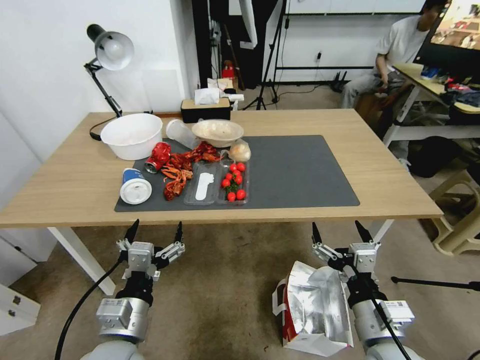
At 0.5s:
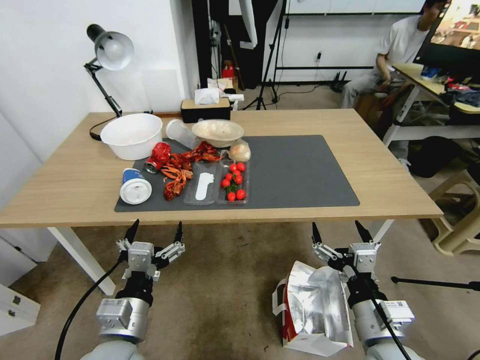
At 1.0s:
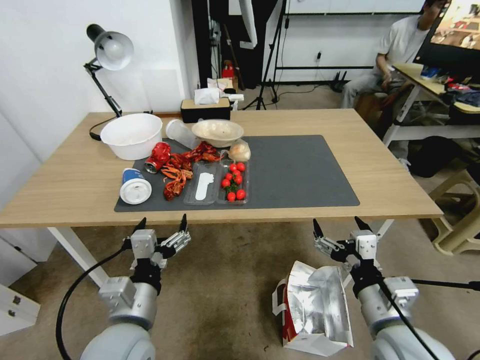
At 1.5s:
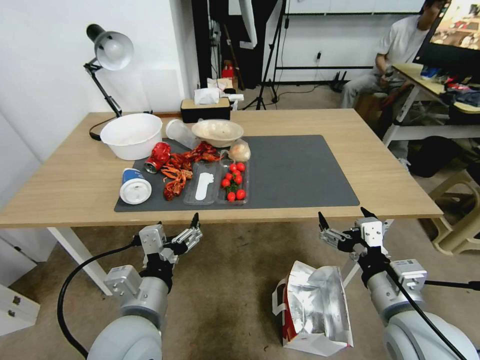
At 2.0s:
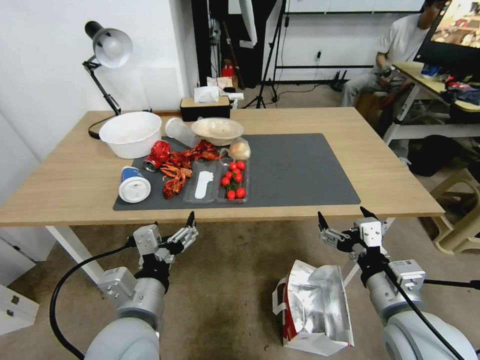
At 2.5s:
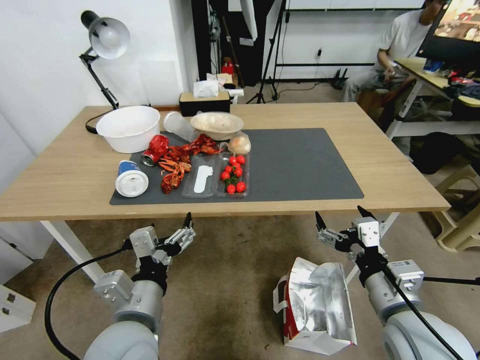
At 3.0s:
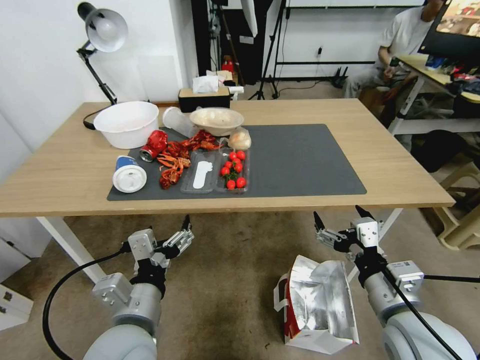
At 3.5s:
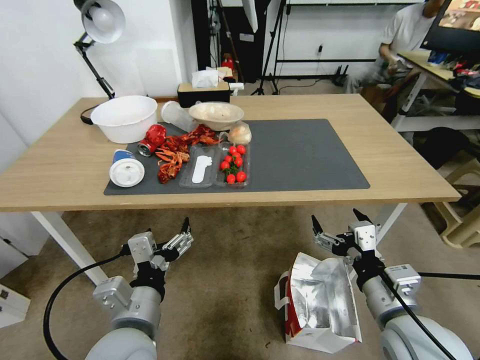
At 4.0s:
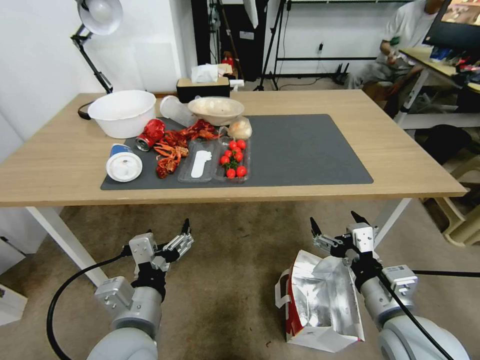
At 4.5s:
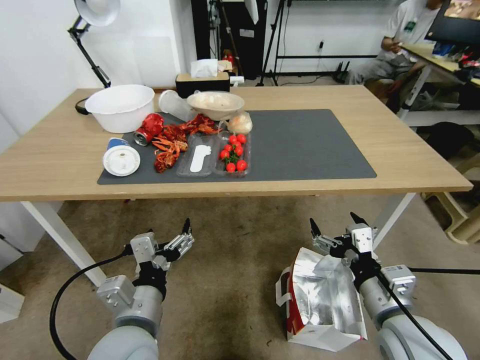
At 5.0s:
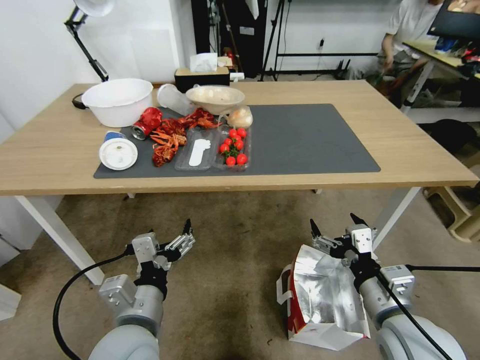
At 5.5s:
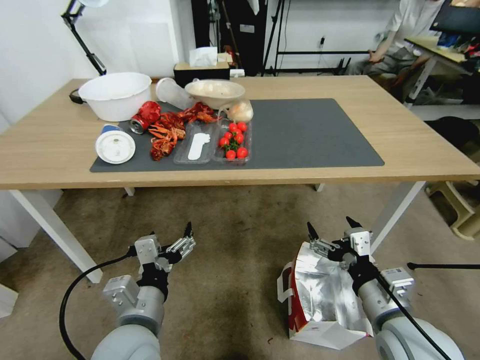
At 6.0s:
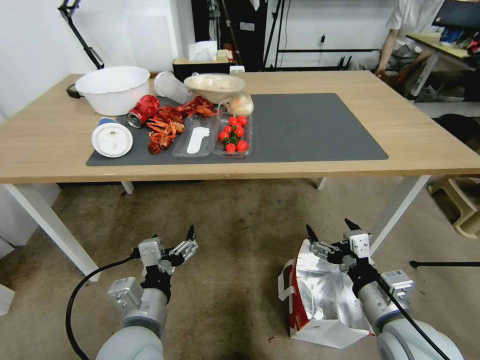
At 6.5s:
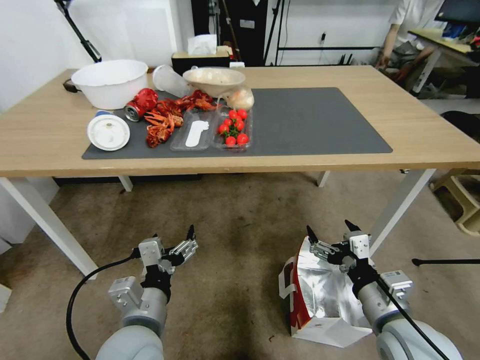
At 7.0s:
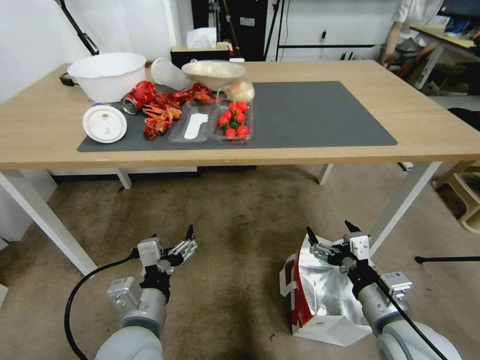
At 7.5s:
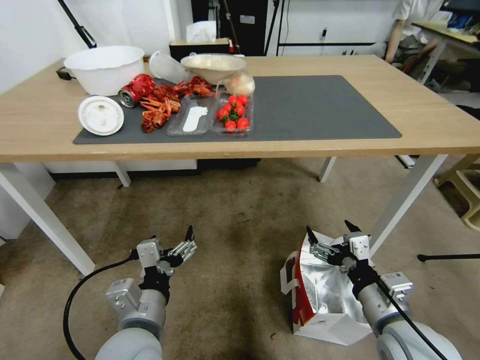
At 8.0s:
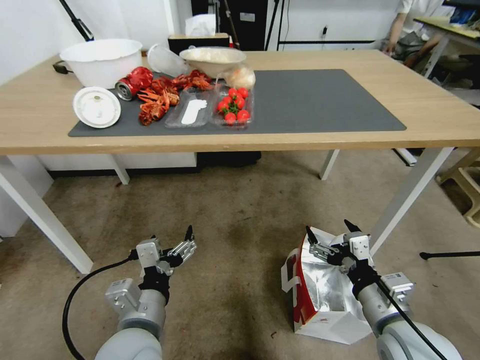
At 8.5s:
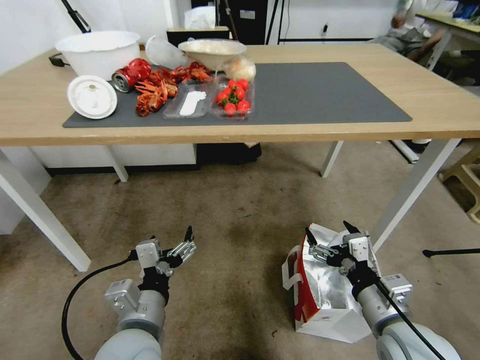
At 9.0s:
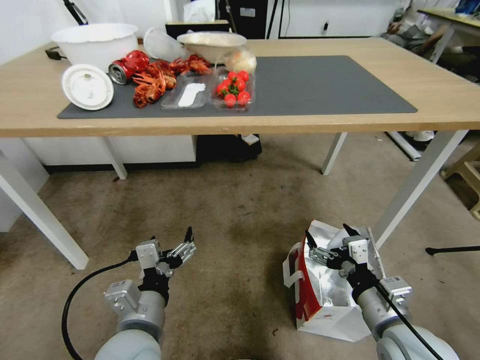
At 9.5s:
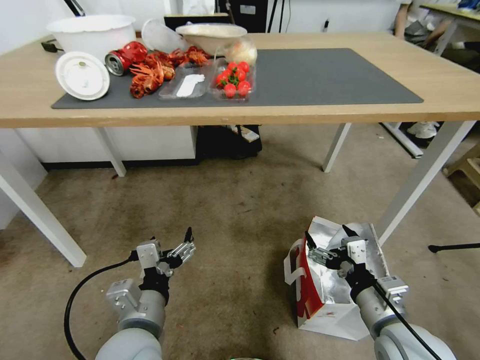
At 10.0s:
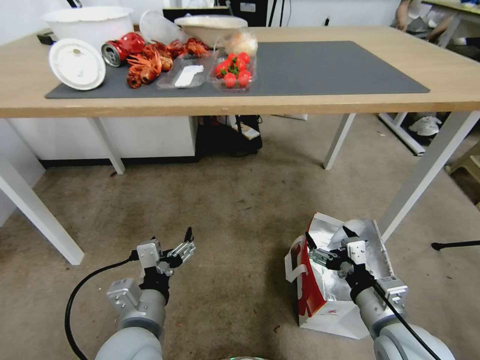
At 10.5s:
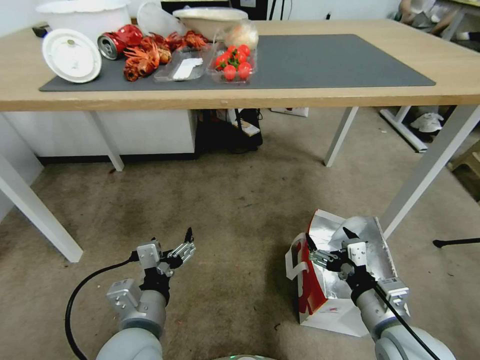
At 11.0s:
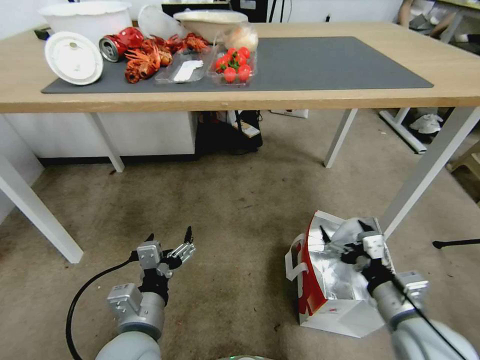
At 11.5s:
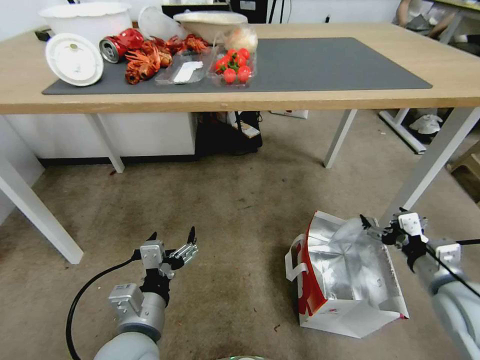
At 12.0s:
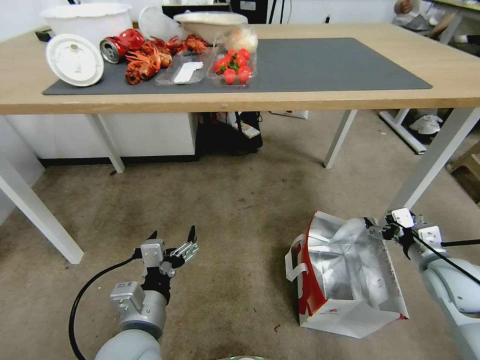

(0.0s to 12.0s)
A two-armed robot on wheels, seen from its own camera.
Task of the whole recording: Pick up the food delivery bag from the floor and place it on the table.
10.0s - 12.0s: The right gripper shifts roughly 20 cm to the right and forward.

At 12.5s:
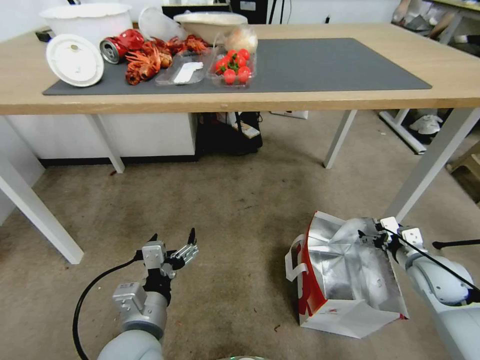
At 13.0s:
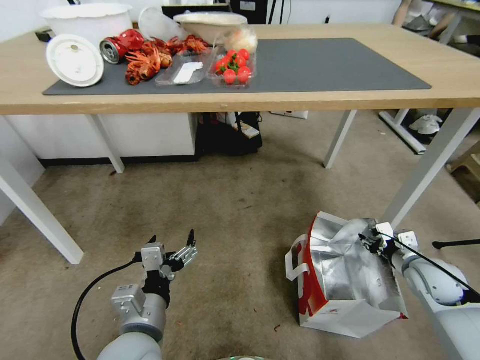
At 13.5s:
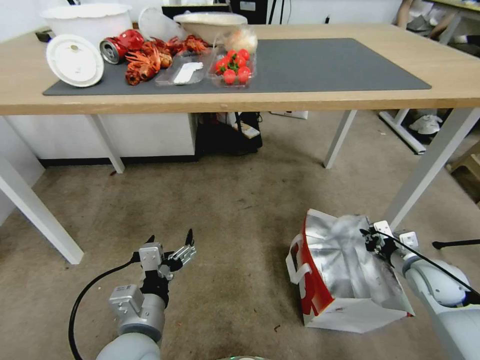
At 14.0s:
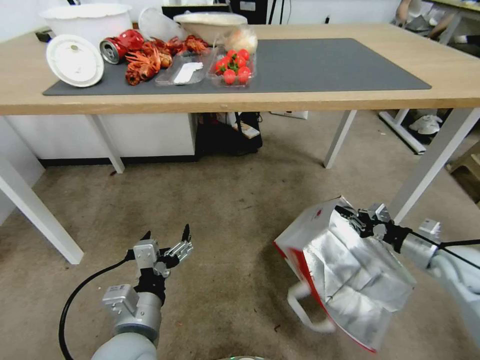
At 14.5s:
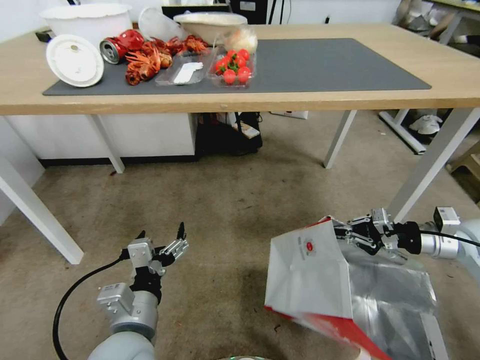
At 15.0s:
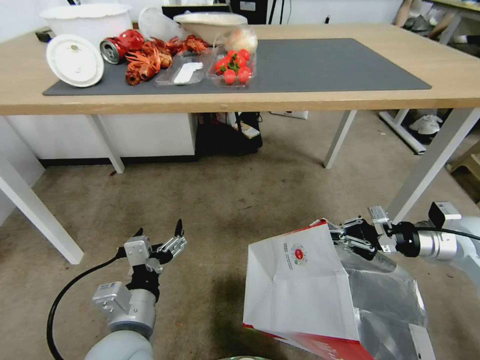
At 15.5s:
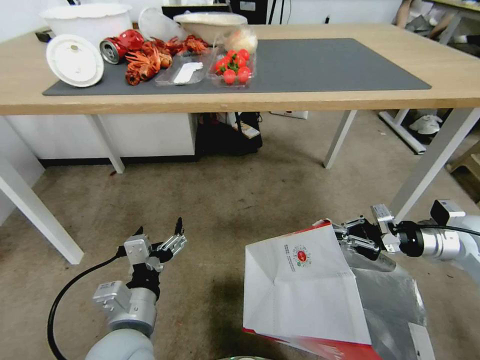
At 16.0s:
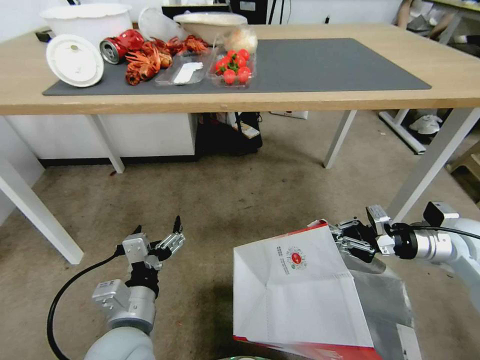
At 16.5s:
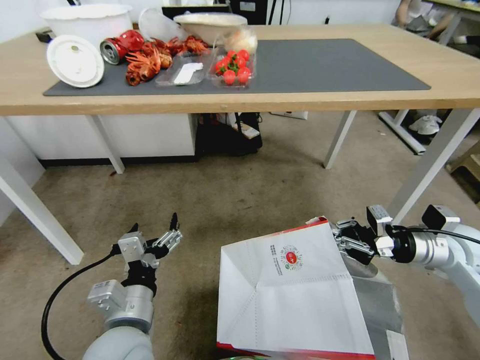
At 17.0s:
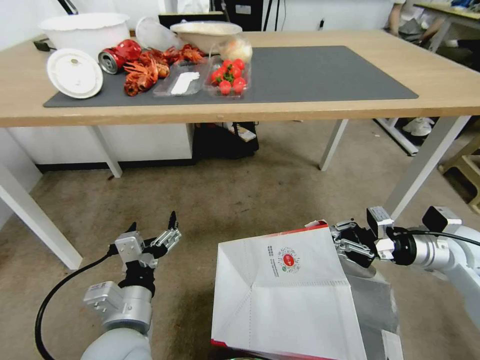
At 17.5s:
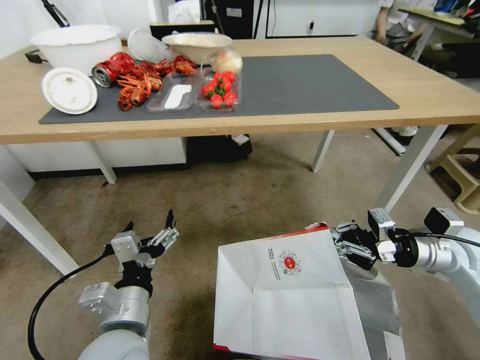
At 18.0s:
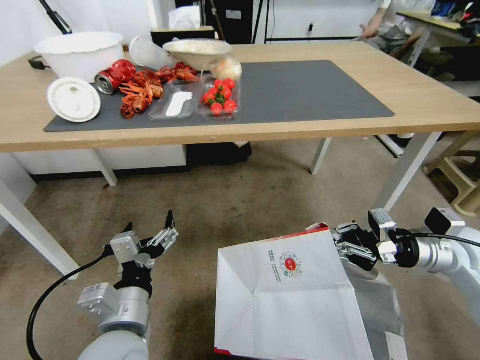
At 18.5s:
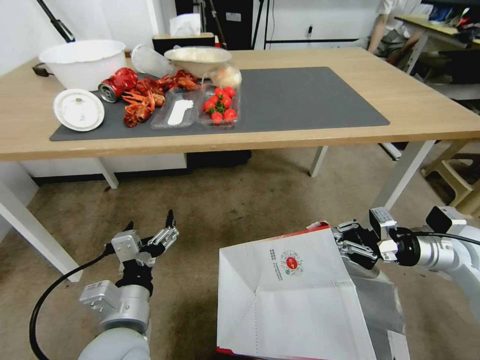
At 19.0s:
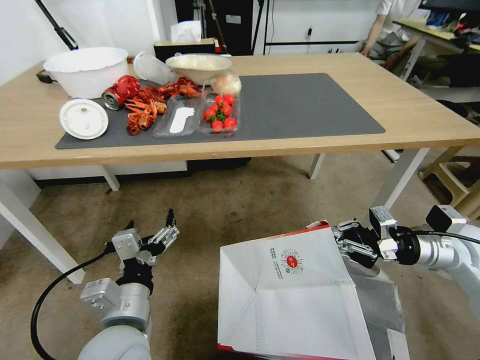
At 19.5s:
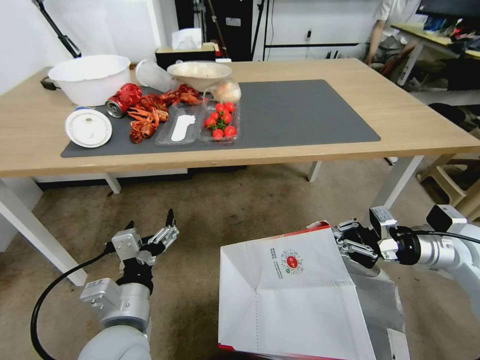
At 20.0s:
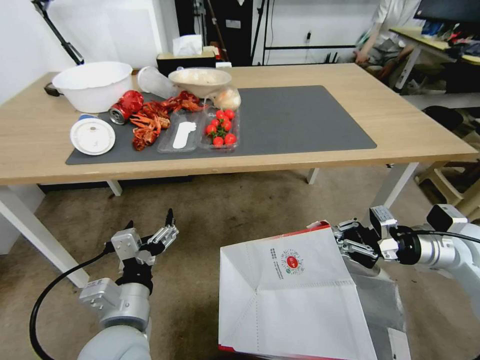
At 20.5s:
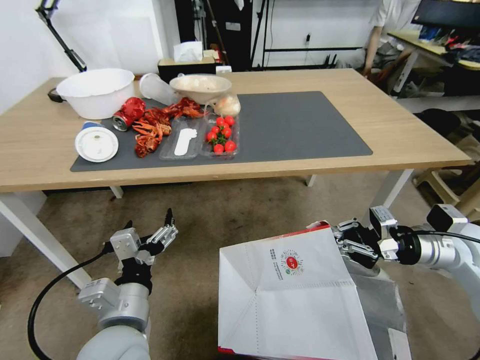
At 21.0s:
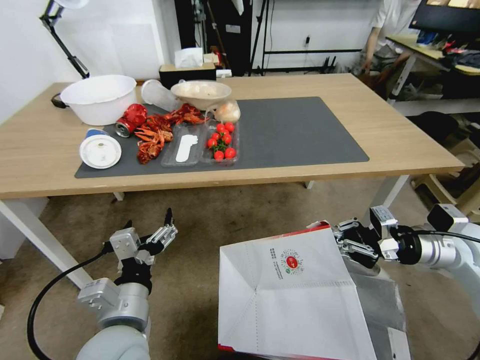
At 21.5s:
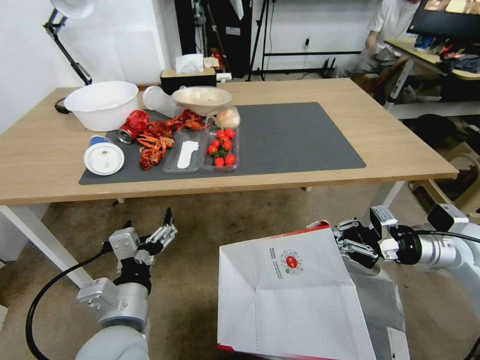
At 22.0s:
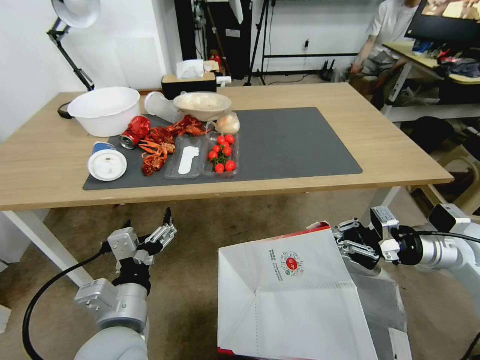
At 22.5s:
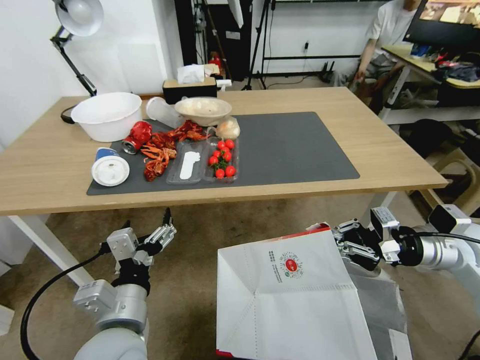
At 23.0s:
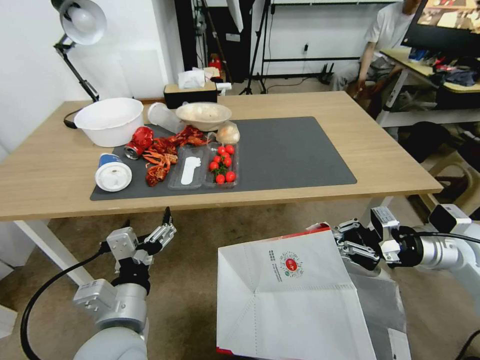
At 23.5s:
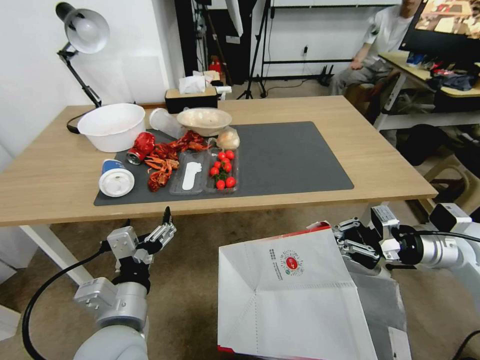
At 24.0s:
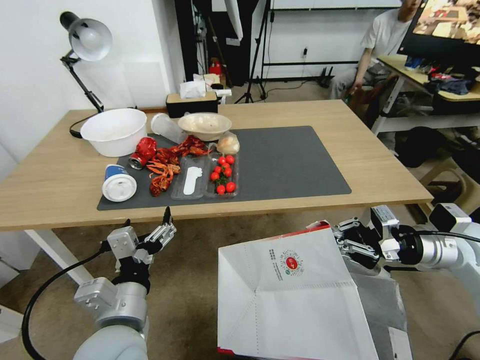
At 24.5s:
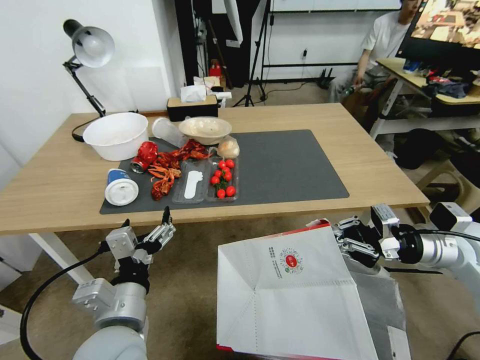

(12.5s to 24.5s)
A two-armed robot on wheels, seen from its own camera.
Task of the whole recording: Pick up the food delivery bag from the floor and place it on the table.
12.5s - 14.5s: The right gripper heads upward, covering approximately 10 cm, and closes.
14.5s - 16.5s: The right gripper heads to the left, covering about 5 cm.

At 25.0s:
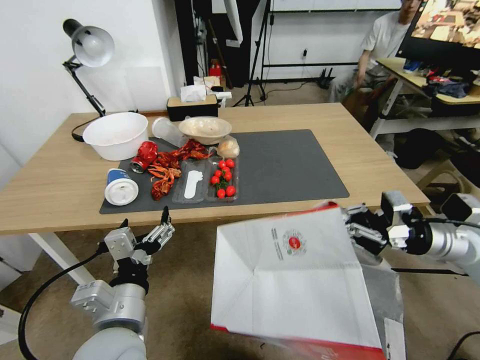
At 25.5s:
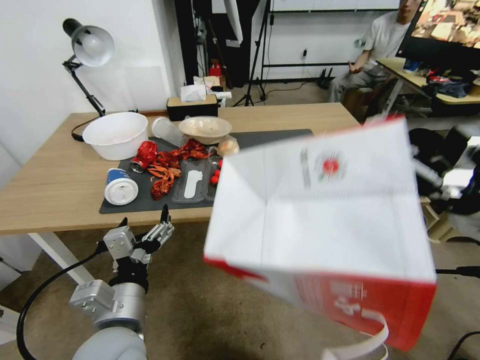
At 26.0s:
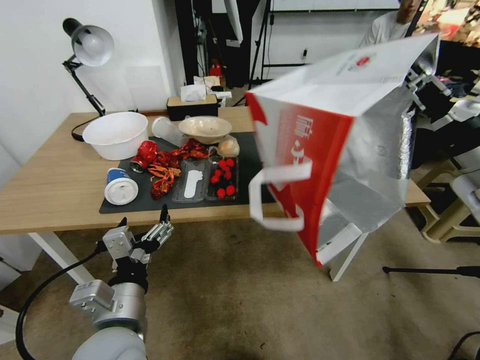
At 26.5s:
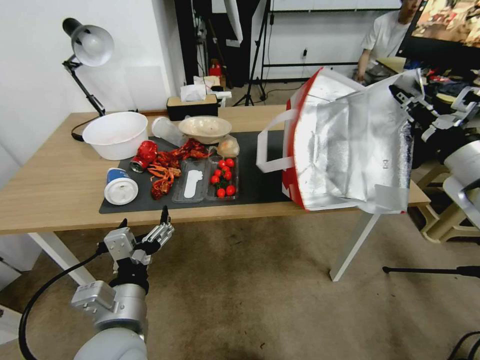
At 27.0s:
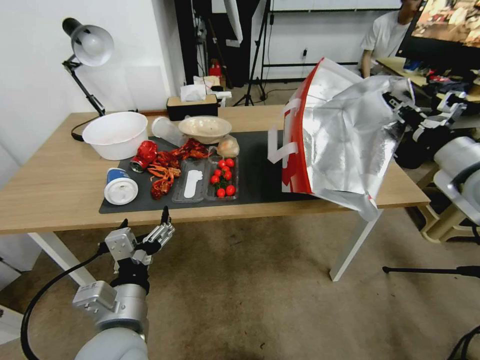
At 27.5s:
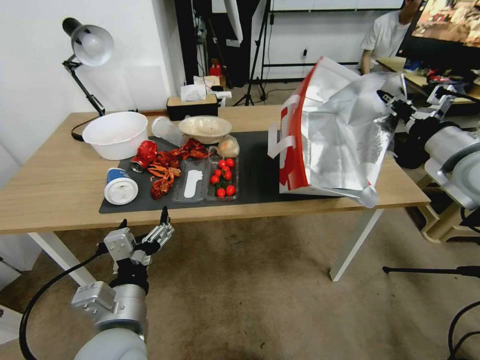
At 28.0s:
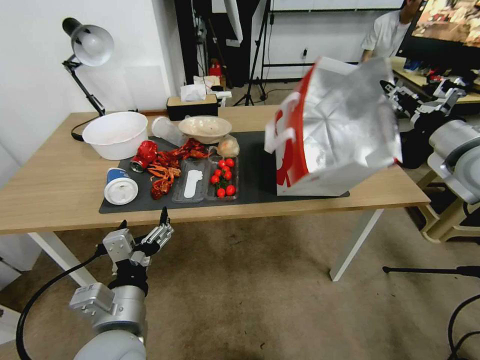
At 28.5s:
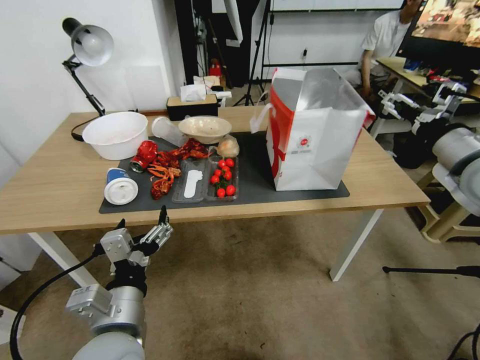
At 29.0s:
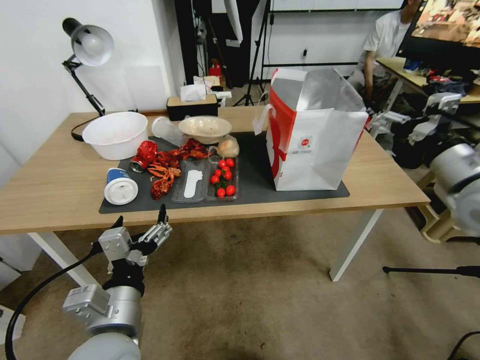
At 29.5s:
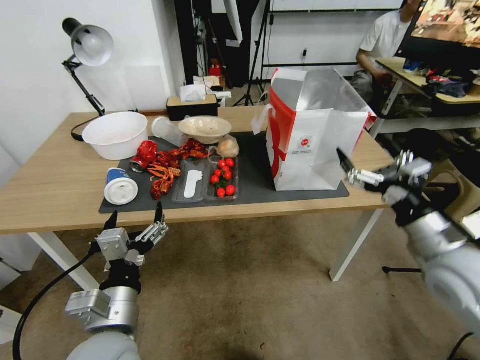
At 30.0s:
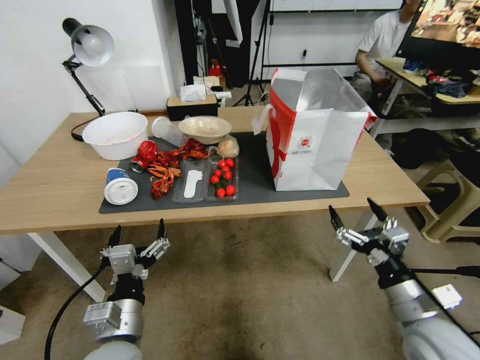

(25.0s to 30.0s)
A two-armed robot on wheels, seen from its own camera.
Task of the whole recording: Pick up the food delivery bag from the floor and place it on the table.
25.0s - 27.5s: The right gripper goes roughly 10 cm upward and forward.
27.5s - 30.0s: The left gripper goes some 5 cm downward, while the right gripper travels downward and backward by about 30 cm, and opens up.
